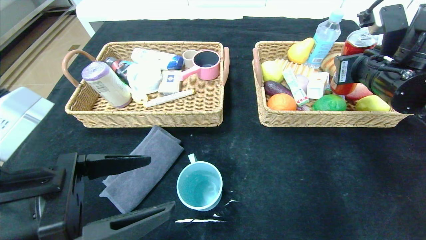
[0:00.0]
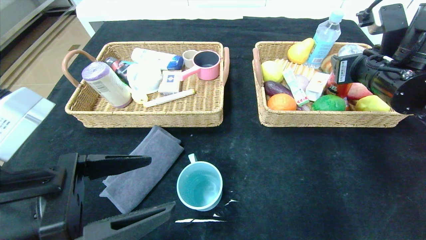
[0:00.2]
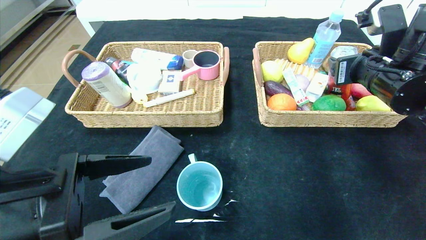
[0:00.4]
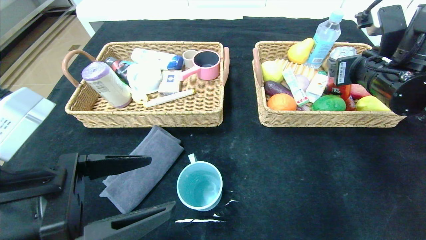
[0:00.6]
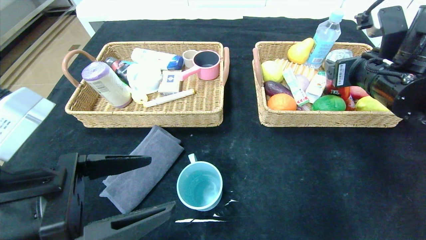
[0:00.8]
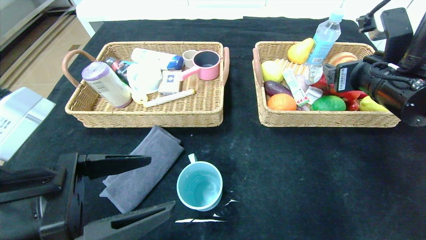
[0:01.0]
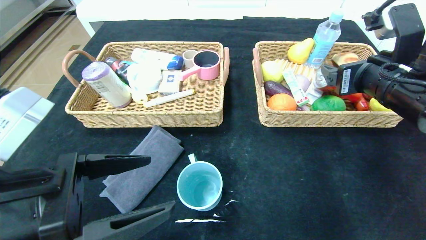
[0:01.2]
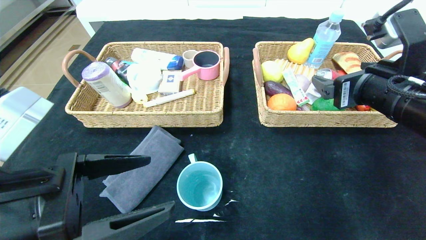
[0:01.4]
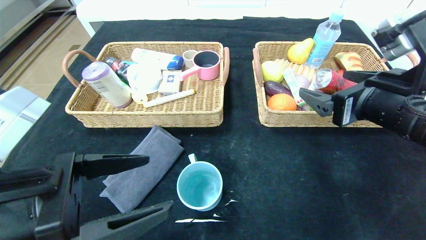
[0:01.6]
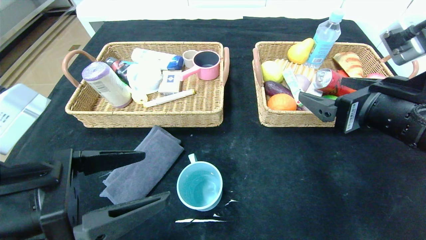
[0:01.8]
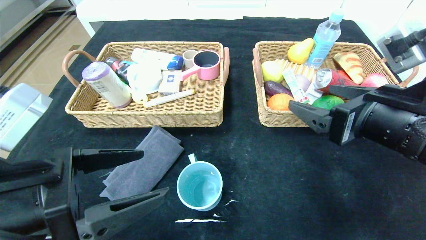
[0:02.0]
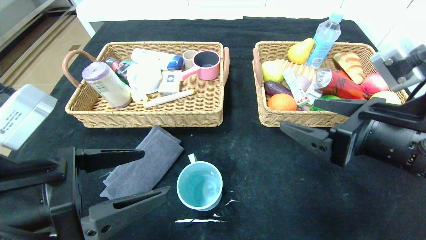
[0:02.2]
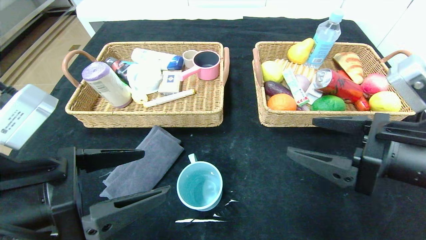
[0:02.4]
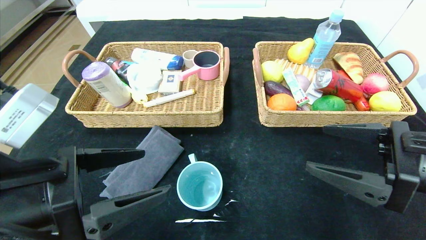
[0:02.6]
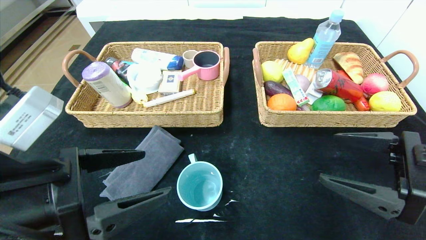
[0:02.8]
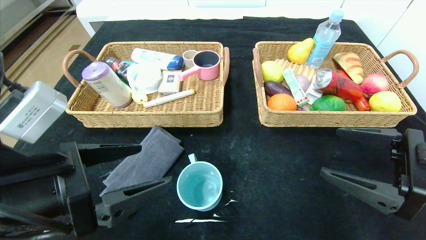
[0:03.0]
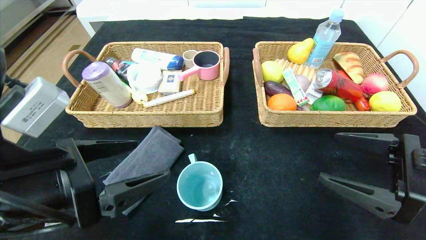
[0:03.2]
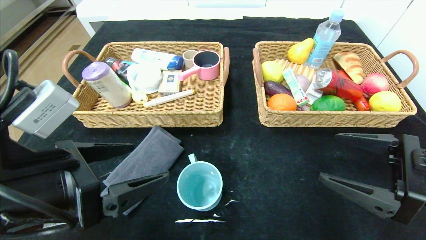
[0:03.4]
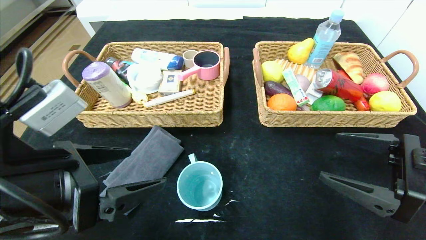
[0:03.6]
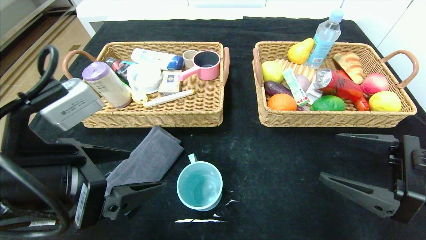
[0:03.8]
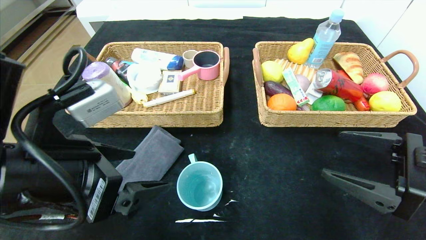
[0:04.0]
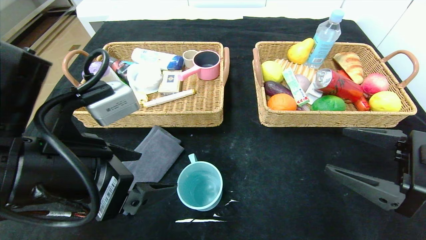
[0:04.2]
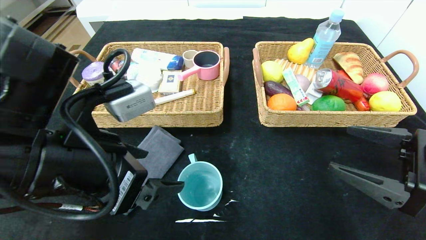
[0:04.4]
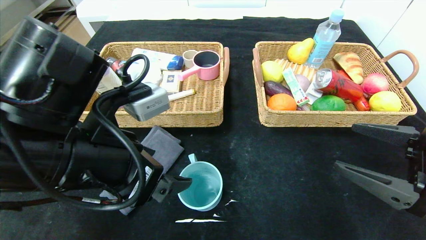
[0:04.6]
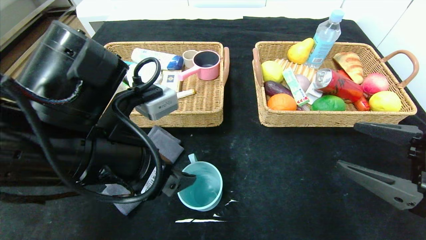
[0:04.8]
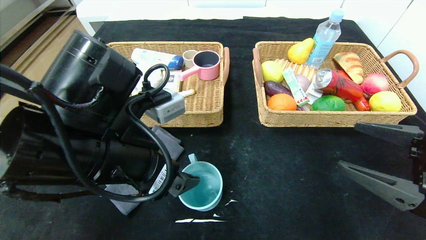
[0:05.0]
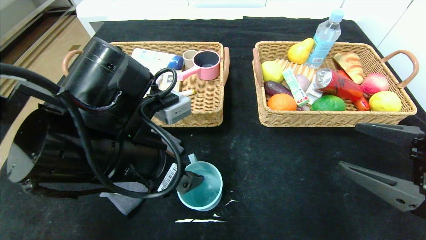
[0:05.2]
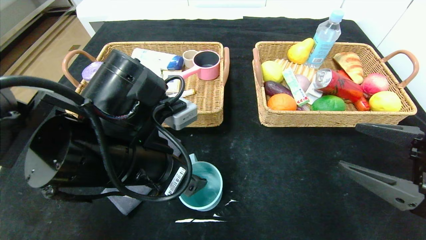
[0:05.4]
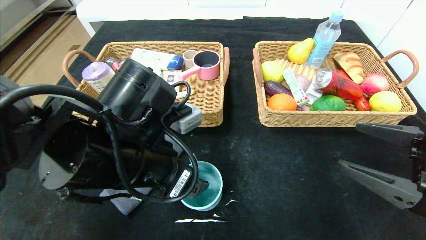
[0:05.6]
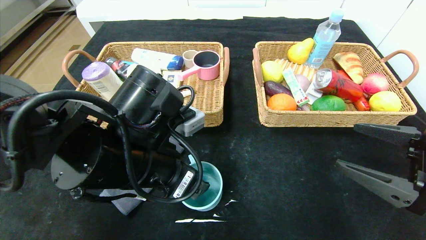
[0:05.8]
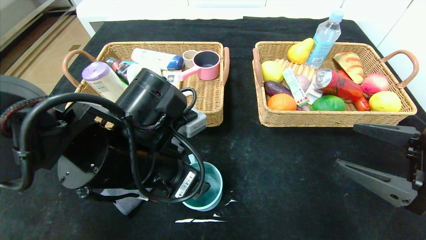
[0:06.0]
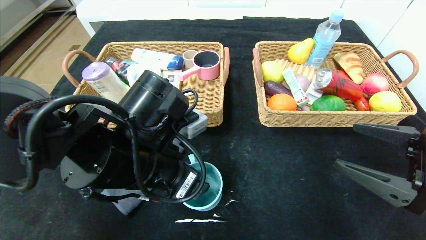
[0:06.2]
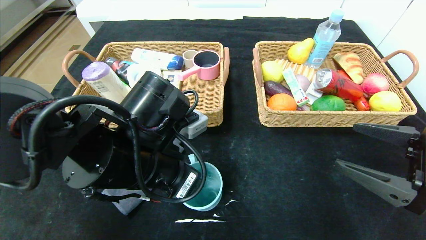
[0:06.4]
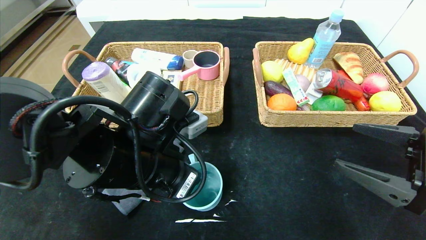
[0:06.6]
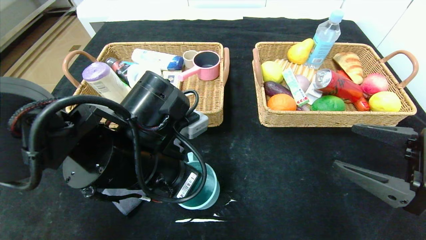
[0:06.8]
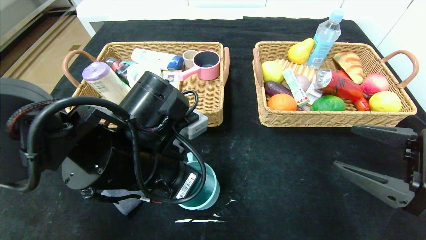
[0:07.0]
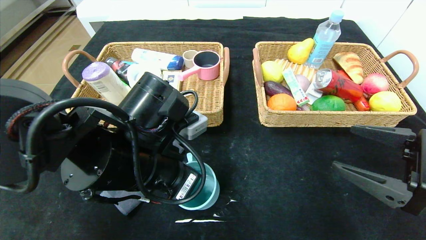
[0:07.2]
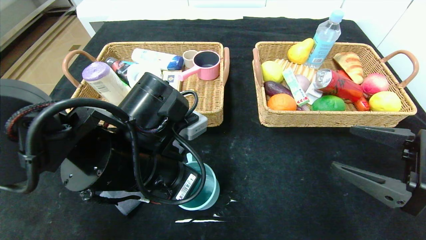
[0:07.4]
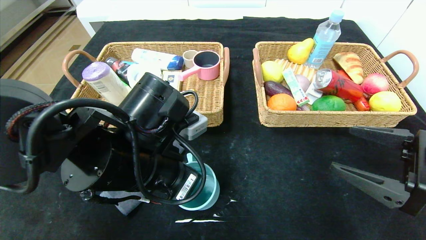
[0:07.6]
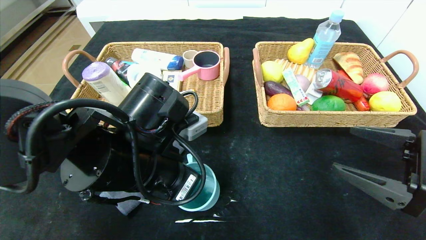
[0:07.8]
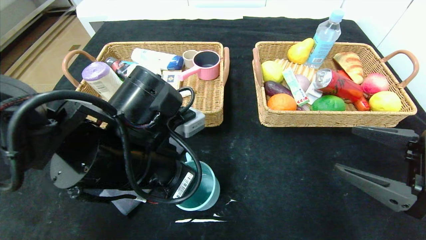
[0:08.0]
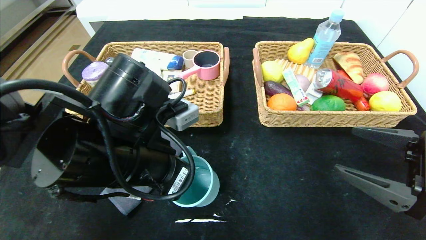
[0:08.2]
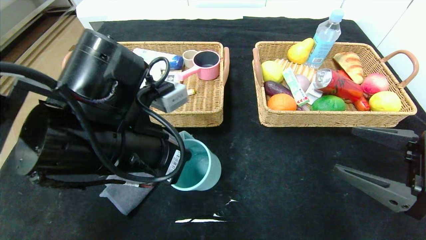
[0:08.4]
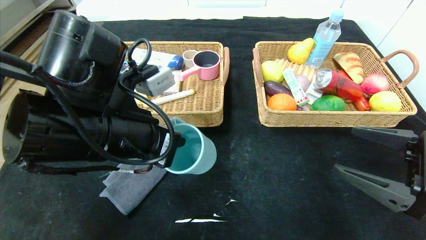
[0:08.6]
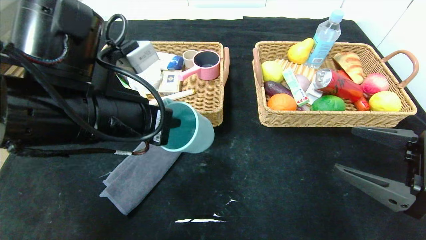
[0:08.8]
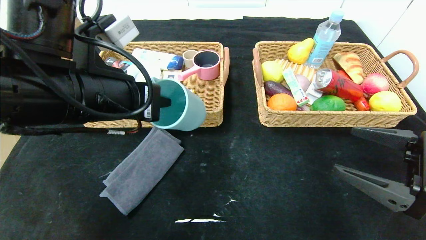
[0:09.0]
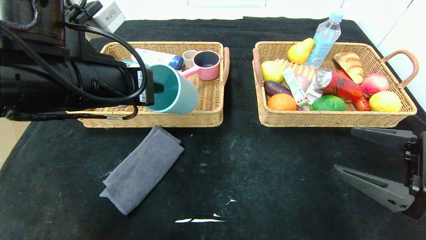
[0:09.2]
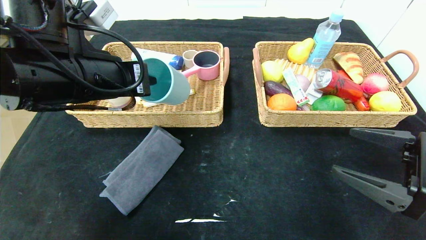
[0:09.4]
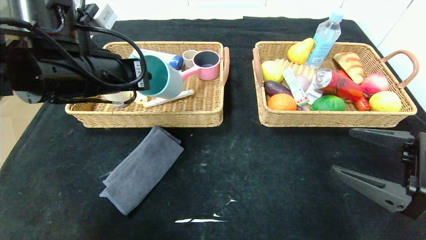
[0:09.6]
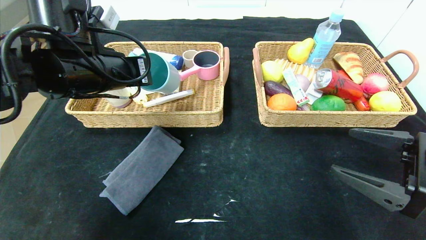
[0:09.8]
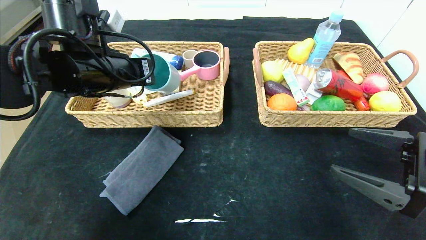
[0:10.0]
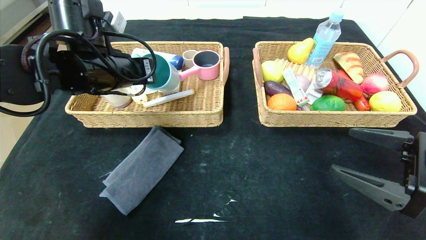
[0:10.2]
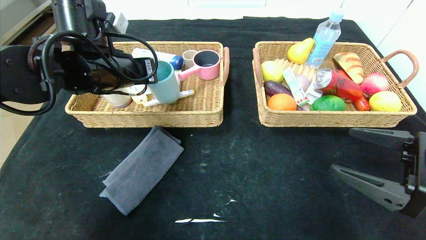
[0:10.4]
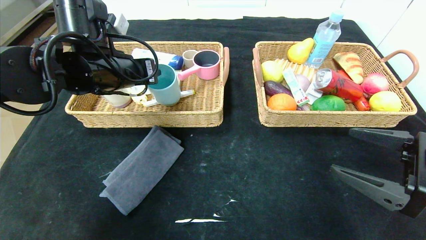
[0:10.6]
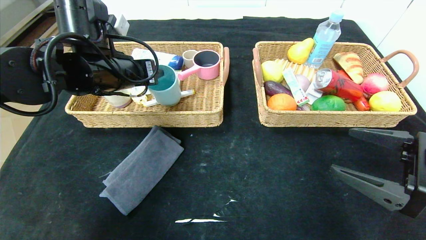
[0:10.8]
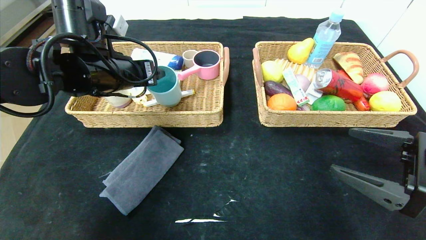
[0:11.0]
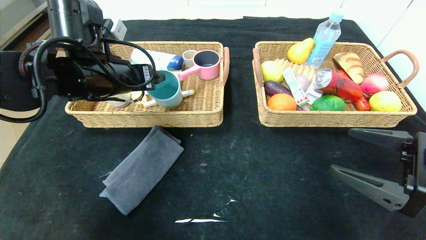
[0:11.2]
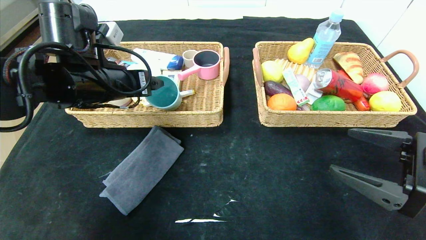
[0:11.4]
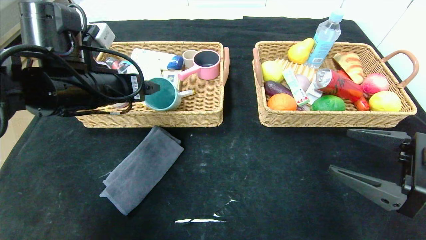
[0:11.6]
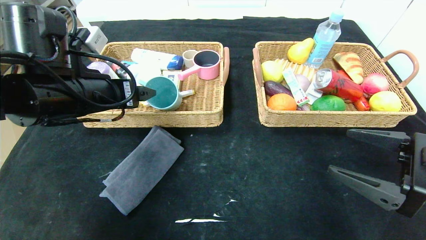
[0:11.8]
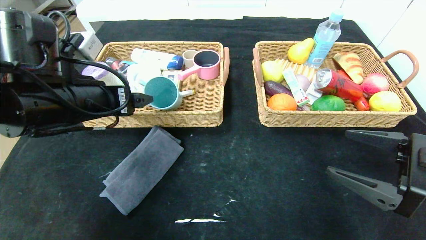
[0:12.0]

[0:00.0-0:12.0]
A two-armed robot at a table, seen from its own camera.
Step, 0:00.0 to 0:02.0: Grasp the canned cola and put it in the right basket.
0:00.0 to 0:01.6: The right gripper heads backward, covering some 10 cm, and opens its fingers.
0:01.6 to 0:03.0: The right gripper goes about 10 cm backward, downward and to the right.
0:03.0 to 0:04.4: The left gripper changes place by roughly 5 cm.
0:04.4 to 0:06.0: The left gripper is displaced to the right by approximately 5 cm.
0:06.0 to 0:07.6: The left gripper closes its fingers.
0:07.6 to 0:09.0: The left gripper travels upward and to the left by approximately 10 cm.
0:09.0 to 0:10.4: The left gripper is displaced forward by approximately 10 cm.
0:10.4 to 0:12.0: The left gripper moves backward, approximately 10 cm, and opens up.

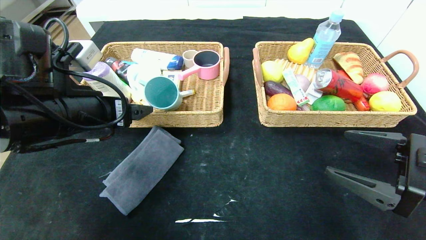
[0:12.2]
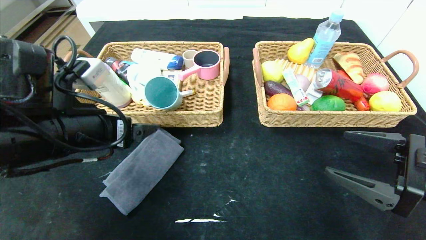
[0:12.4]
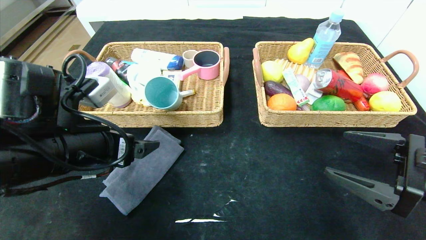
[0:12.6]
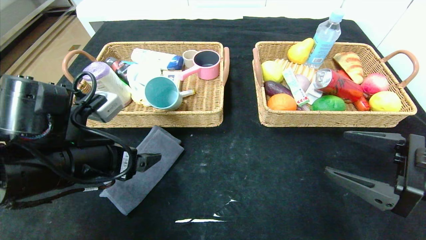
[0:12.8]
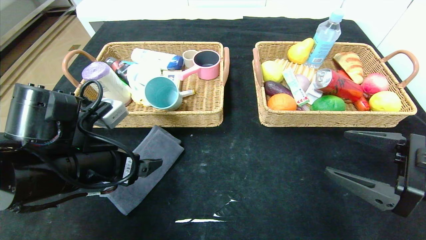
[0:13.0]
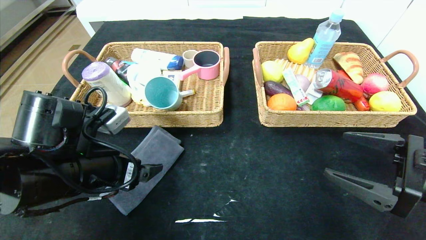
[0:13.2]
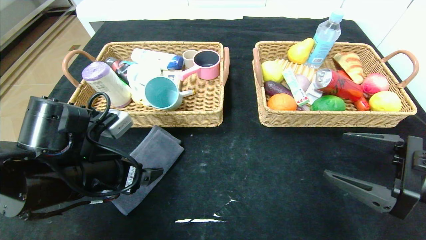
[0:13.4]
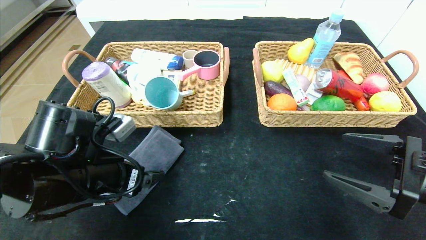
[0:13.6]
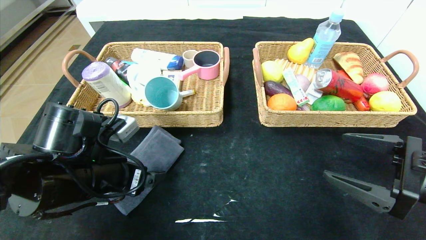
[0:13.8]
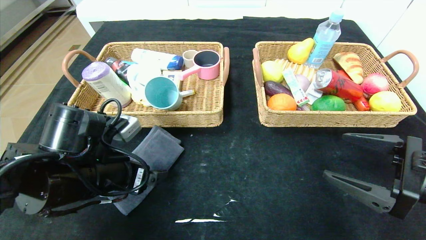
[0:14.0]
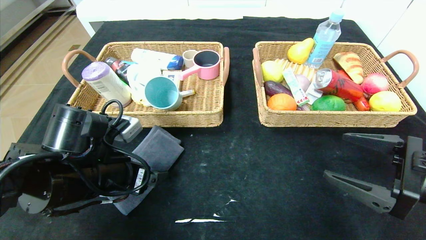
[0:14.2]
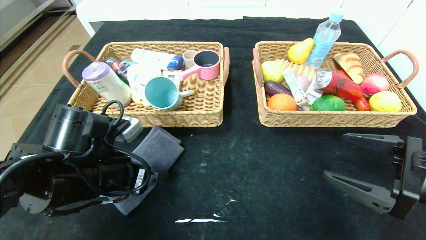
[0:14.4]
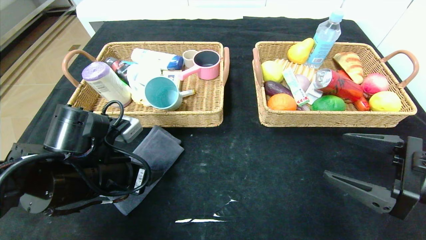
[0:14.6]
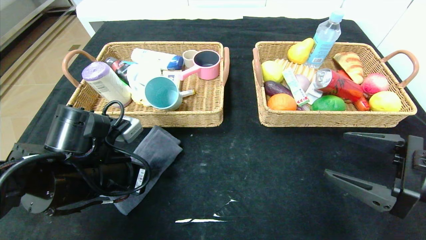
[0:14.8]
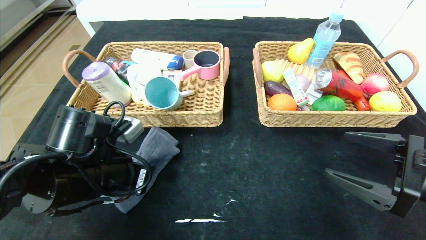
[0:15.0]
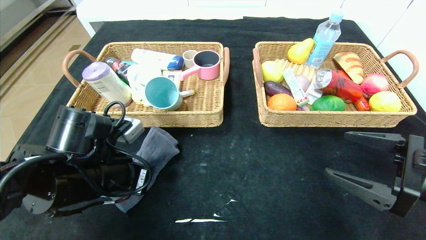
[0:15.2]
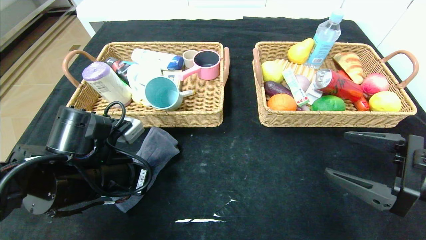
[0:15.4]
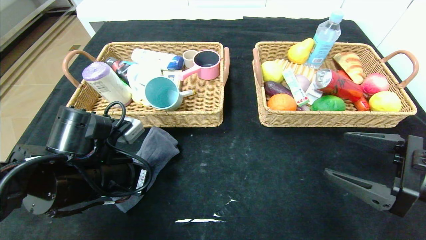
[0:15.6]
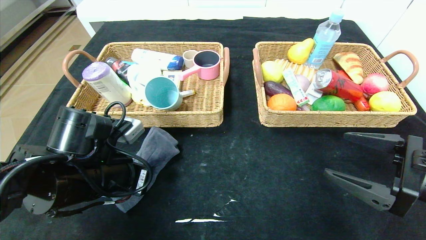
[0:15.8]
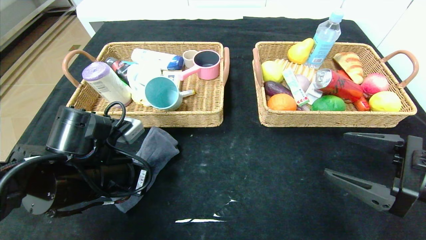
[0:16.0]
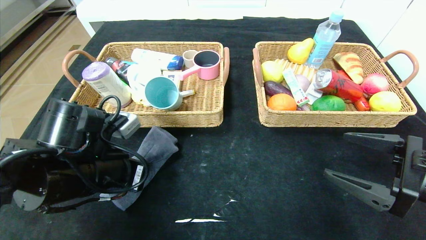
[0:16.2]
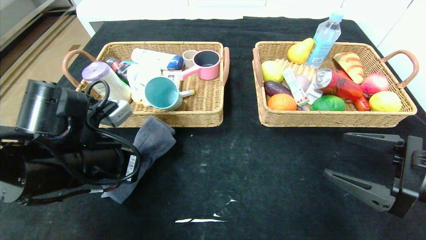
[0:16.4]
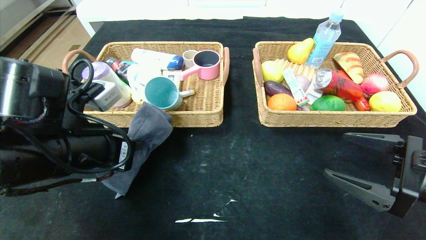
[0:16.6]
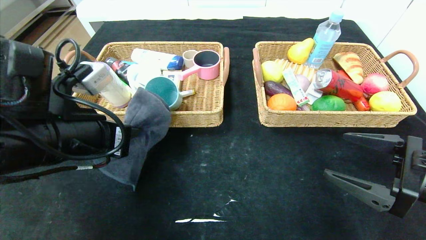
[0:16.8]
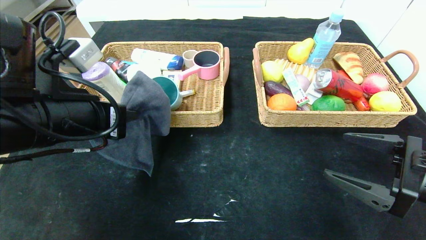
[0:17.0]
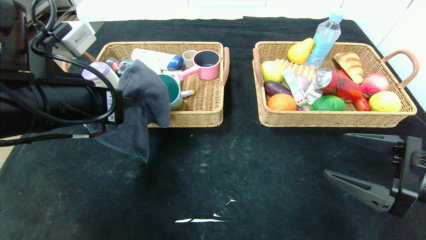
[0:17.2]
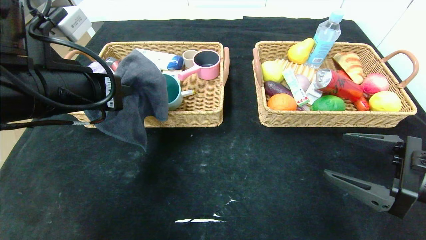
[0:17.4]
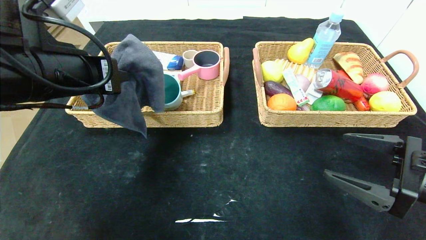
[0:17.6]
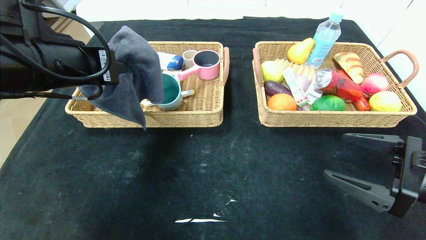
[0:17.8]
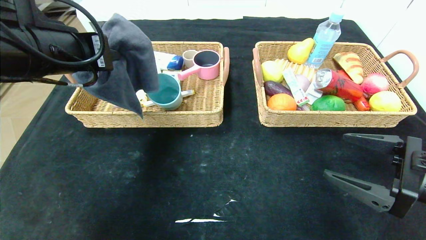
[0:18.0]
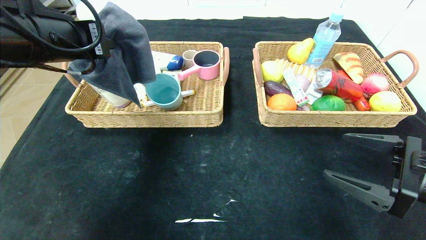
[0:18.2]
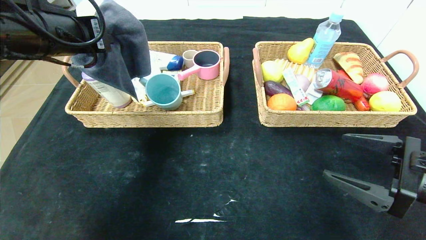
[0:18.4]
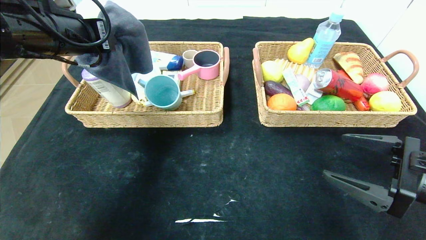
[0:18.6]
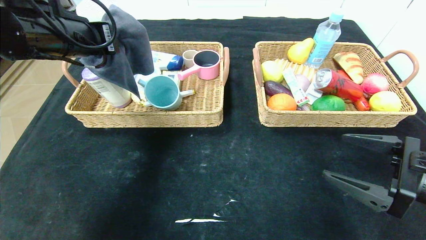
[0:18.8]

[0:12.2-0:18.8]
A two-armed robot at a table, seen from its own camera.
0:12.2 to 0:13.8: The left gripper goes roughly 10 cm downward.
0:13.8 to 0:15.4: The left gripper closes.
0:15.4 to 0:17.2: The left gripper shifts about 10 cm upward.
0:17.2 to 0:18.8: The left gripper travels forward and upward by approximately 10 cm.
